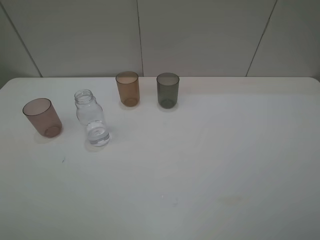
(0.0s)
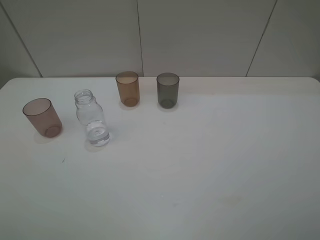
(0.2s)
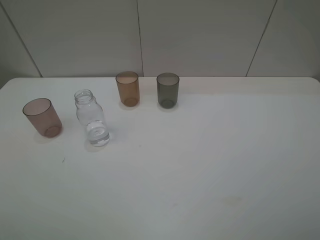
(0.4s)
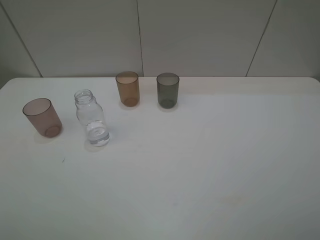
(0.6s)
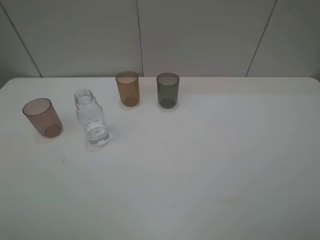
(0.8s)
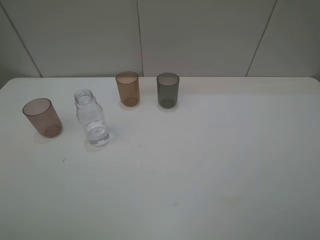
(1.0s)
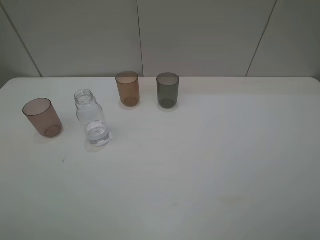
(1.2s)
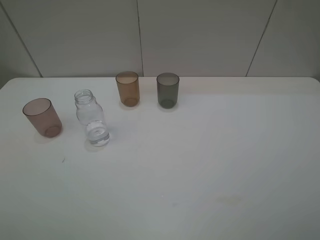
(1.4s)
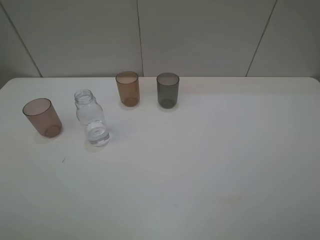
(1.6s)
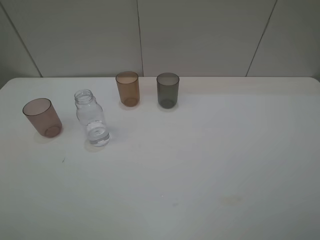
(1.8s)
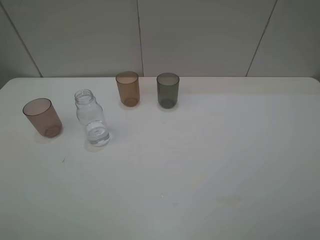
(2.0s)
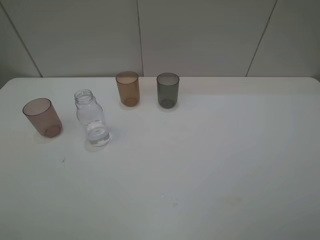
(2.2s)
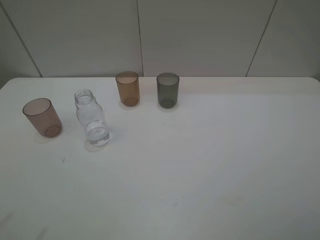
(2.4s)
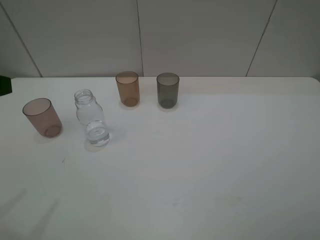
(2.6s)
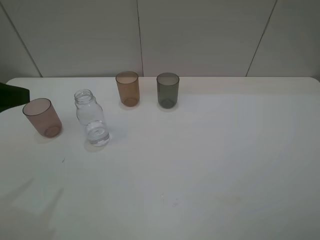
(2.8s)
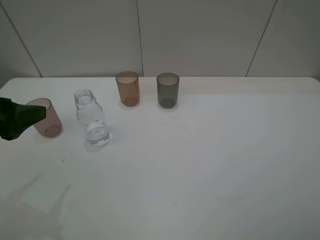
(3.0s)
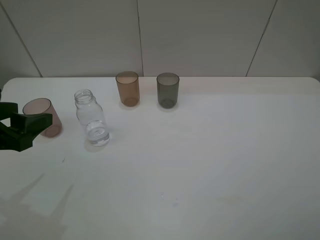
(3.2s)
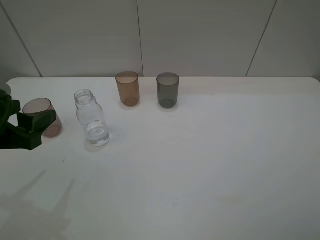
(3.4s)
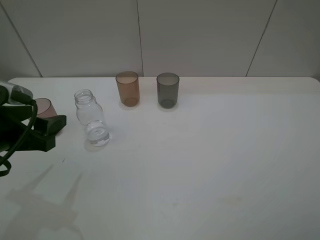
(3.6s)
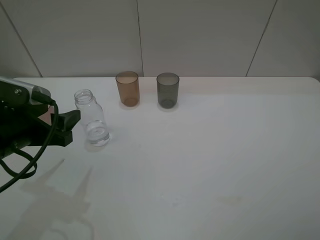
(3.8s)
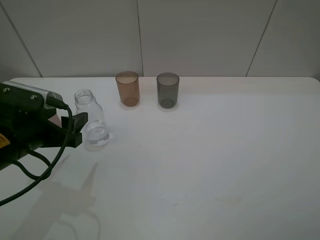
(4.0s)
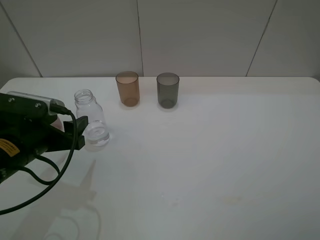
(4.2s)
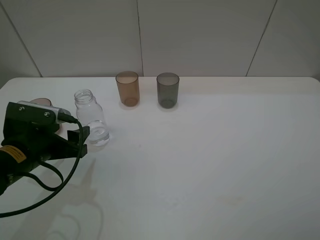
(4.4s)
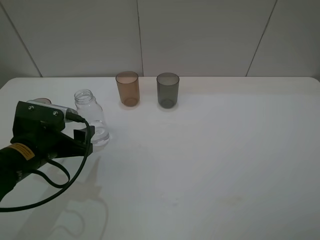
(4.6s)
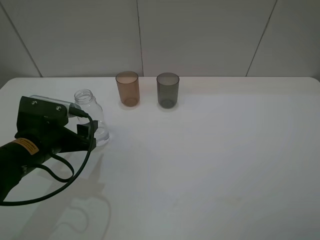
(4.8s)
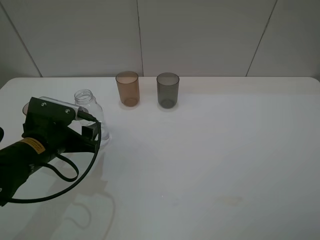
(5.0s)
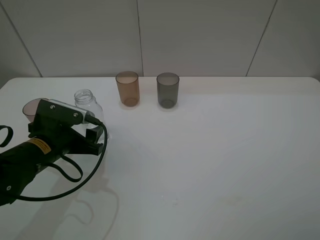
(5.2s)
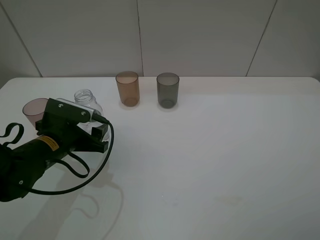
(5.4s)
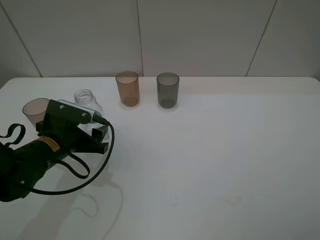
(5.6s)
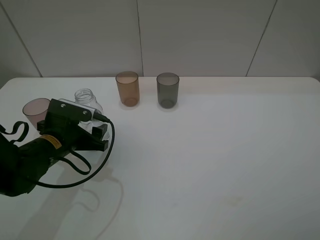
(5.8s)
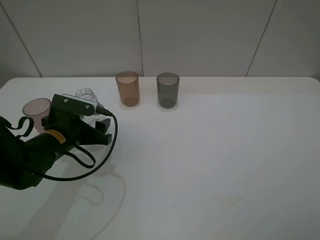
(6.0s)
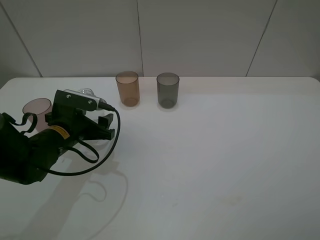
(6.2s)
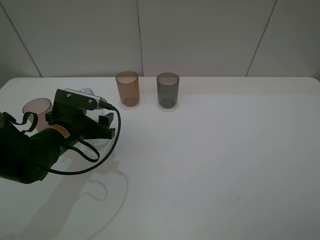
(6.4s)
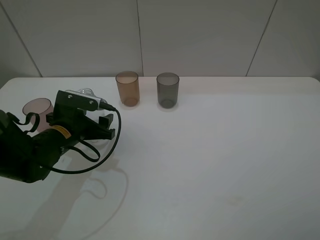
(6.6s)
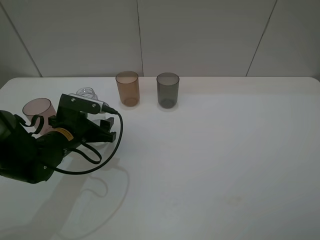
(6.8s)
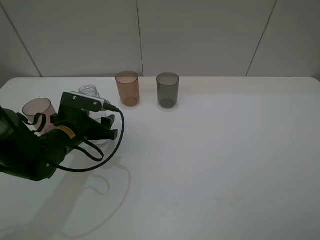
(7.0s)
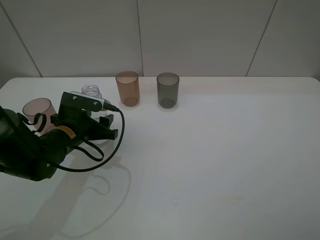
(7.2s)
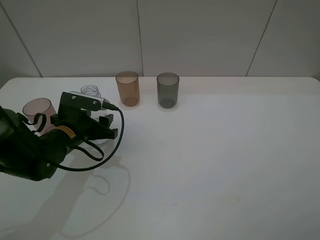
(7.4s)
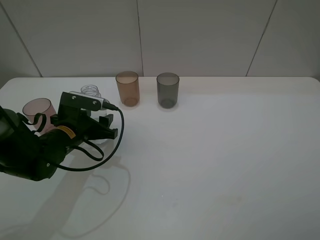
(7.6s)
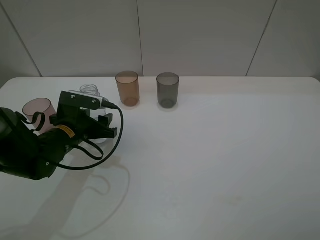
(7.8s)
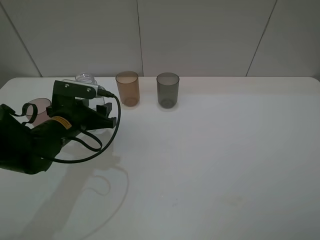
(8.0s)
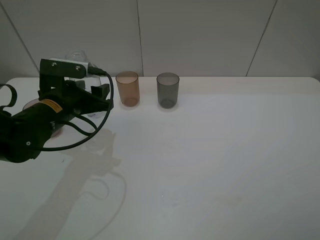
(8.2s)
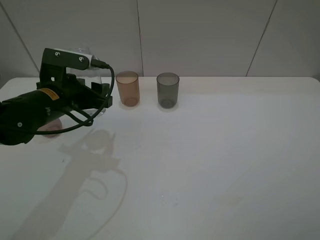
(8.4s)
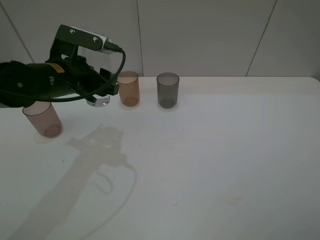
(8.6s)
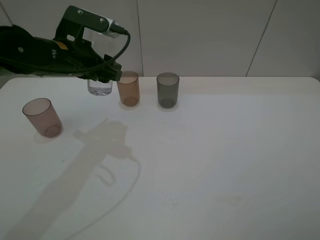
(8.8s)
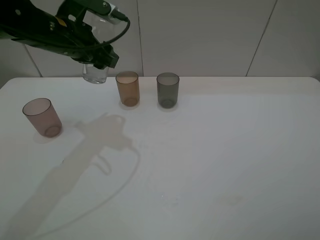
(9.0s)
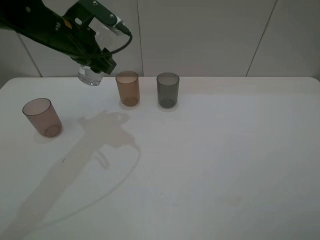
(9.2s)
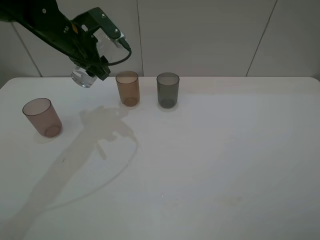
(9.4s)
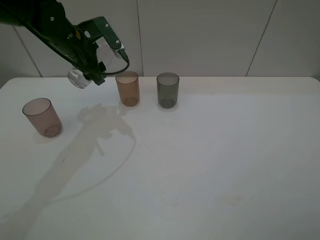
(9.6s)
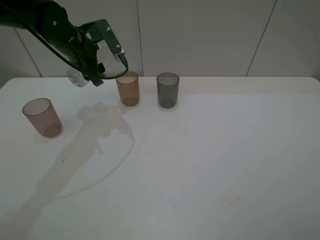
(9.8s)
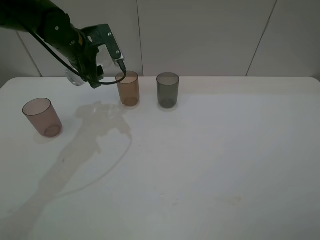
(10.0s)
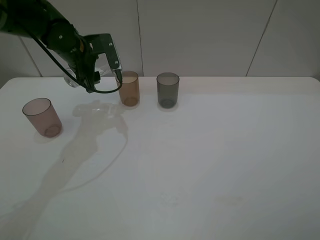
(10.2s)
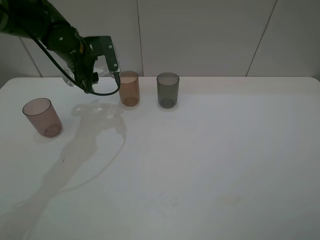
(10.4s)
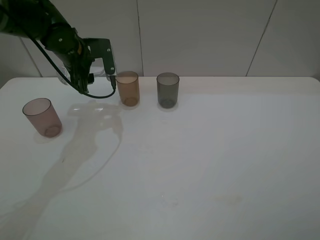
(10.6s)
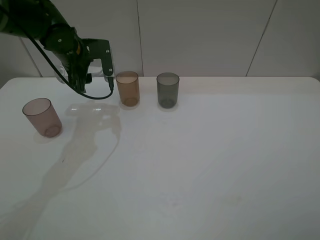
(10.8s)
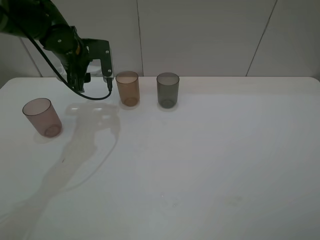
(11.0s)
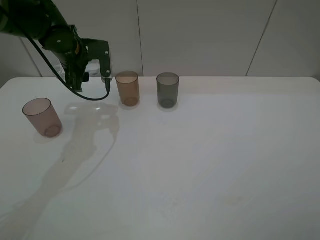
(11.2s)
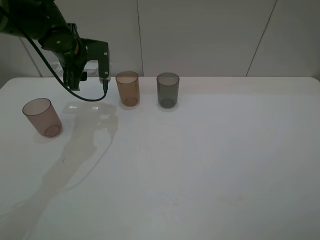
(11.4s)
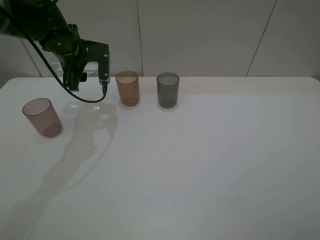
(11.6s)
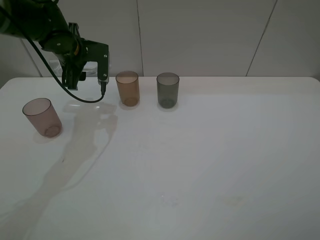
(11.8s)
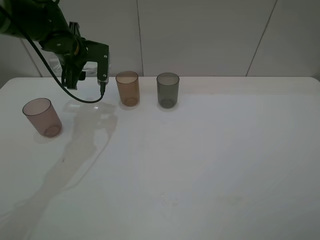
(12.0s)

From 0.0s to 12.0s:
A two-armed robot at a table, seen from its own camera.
Task of the whole recording: pick up the bottle filled with water and pour water into the middle cup of the three cups.
Step, from 0.0s to 8.0s: Grasp the transparent bottle with the left gripper.
From 0.0s to 1.6s: Neither gripper changes place.
From 1.6s to 3.0s: The left gripper travels forward by approximately 15 cm.
From 3.0s to 4.4s: The left gripper moves downward, about 10 cm.
From 4.4s to 6.0s: The left gripper is displaced forward by about 5 cm.
From 6.0s to 7.6s: The left gripper closes its fingers.
From 7.6s to 9.0s: The left gripper heads upward and forward, covering roughly 20 cm.
From 9.0s to 10.4s: The left gripper travels downward and forward by about 10 cm.
From 10.4s to 12.0s: The grippers stay close to where they were, moving slightly.

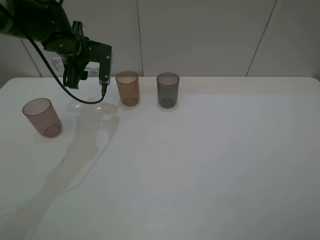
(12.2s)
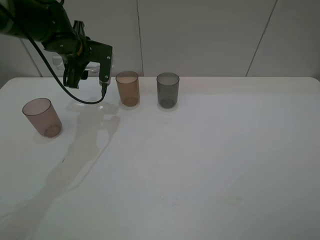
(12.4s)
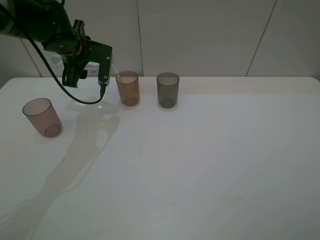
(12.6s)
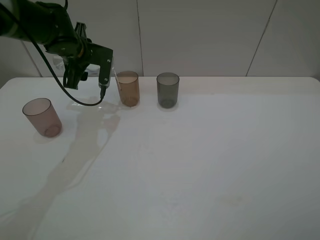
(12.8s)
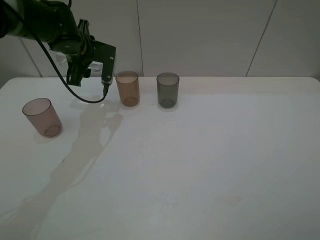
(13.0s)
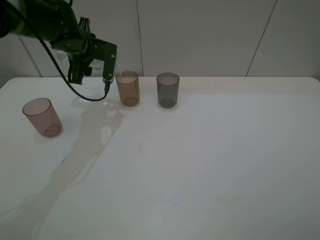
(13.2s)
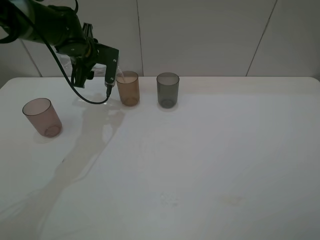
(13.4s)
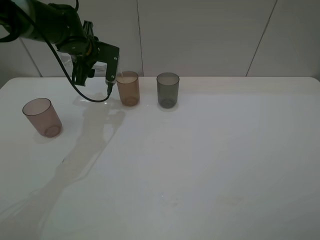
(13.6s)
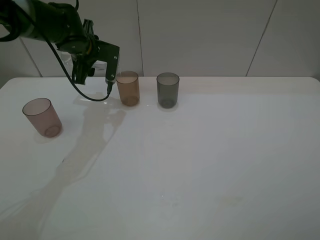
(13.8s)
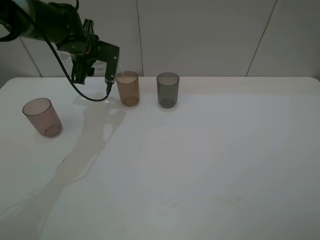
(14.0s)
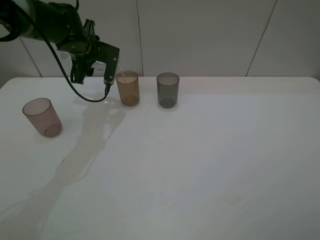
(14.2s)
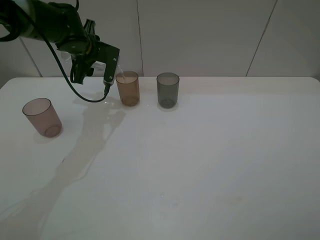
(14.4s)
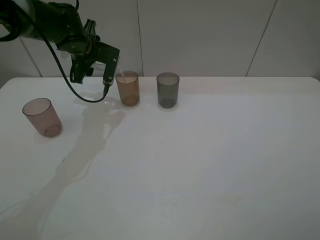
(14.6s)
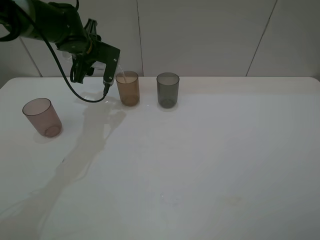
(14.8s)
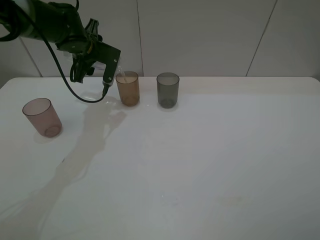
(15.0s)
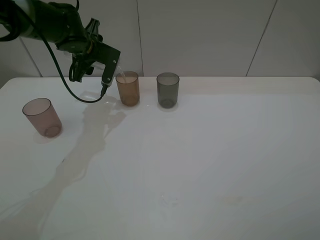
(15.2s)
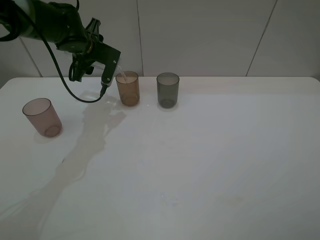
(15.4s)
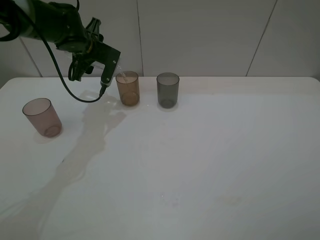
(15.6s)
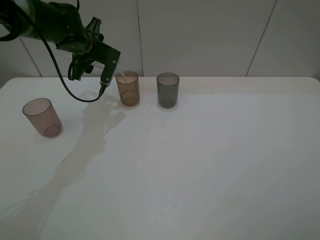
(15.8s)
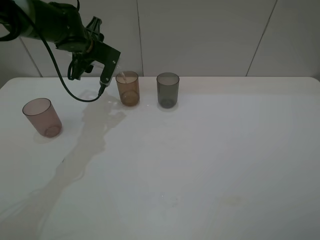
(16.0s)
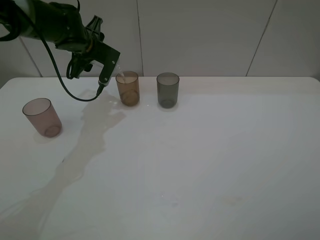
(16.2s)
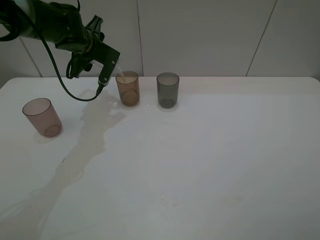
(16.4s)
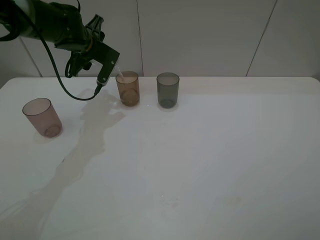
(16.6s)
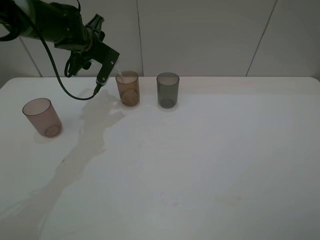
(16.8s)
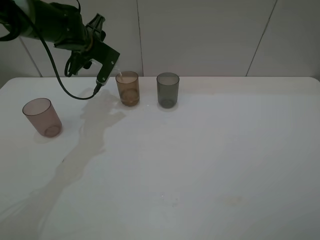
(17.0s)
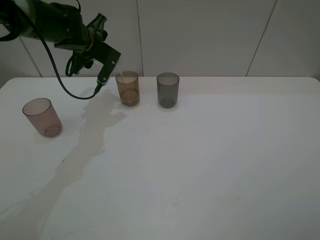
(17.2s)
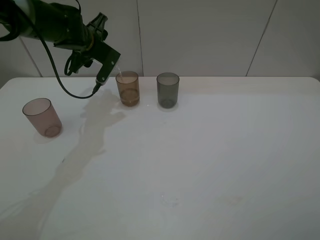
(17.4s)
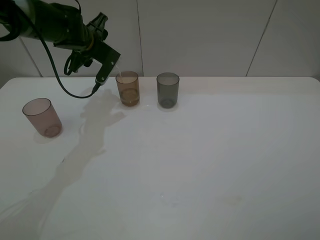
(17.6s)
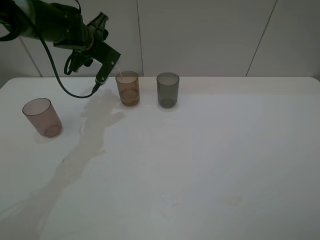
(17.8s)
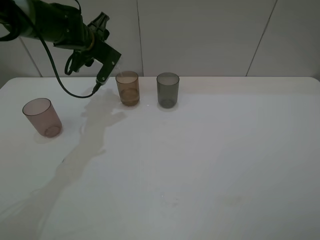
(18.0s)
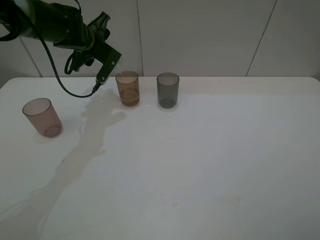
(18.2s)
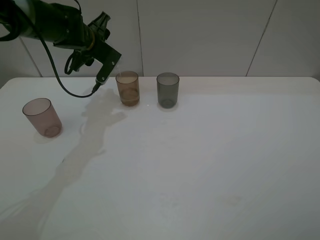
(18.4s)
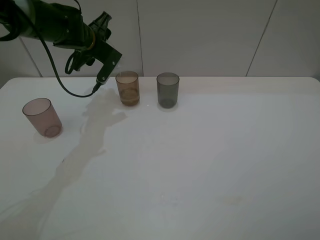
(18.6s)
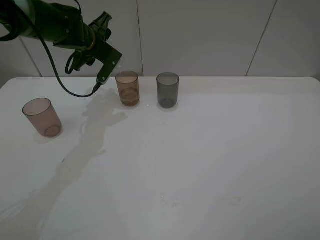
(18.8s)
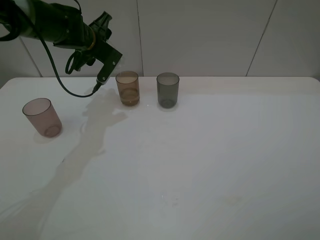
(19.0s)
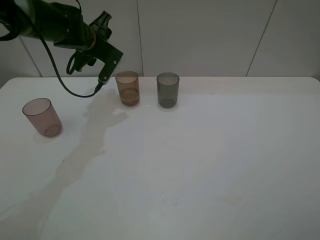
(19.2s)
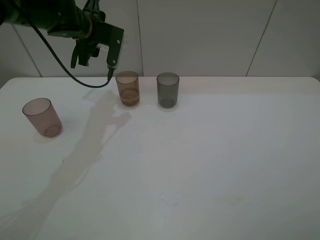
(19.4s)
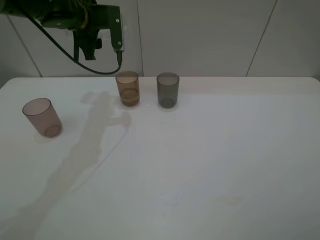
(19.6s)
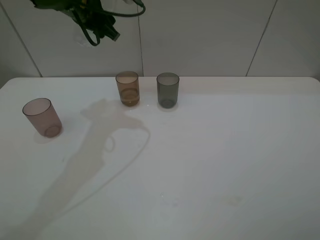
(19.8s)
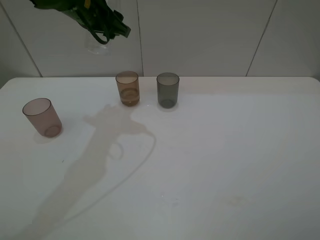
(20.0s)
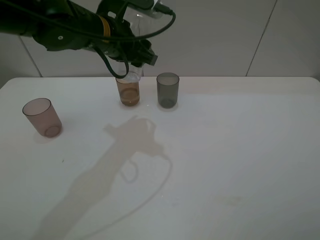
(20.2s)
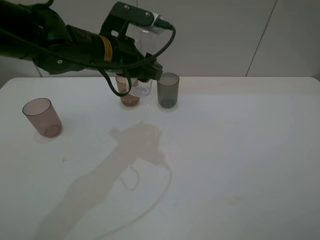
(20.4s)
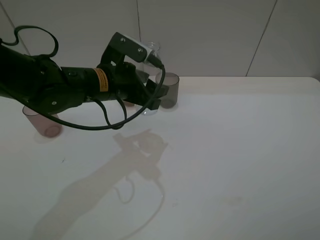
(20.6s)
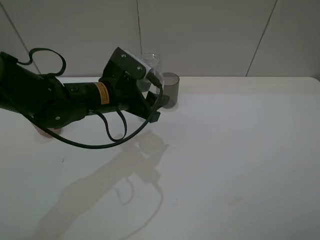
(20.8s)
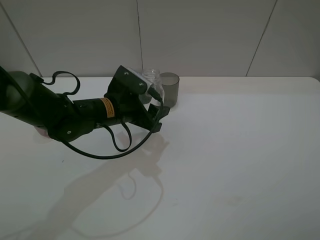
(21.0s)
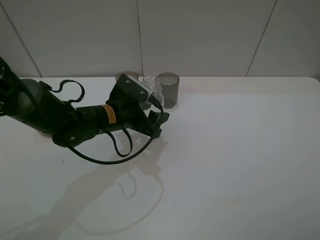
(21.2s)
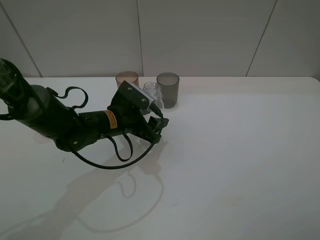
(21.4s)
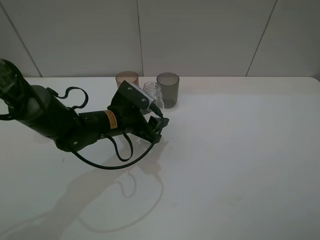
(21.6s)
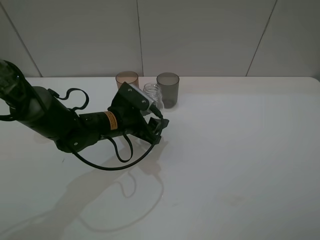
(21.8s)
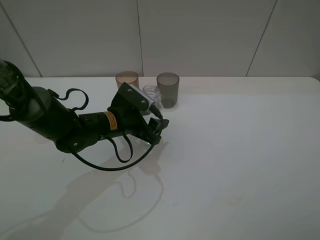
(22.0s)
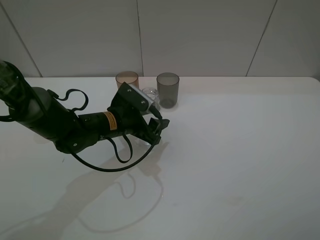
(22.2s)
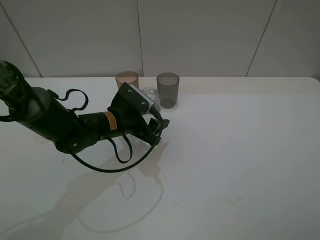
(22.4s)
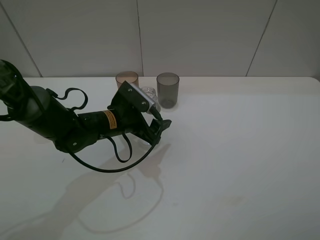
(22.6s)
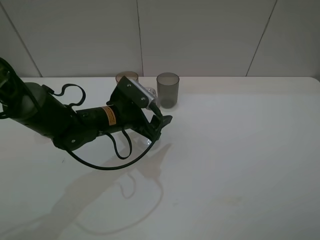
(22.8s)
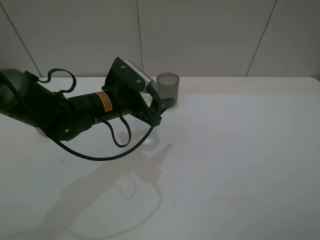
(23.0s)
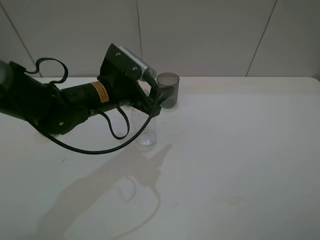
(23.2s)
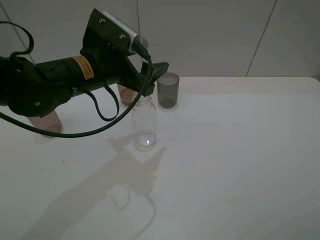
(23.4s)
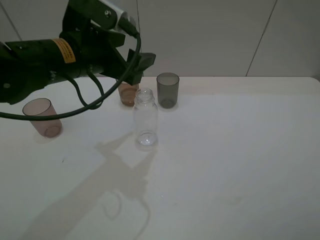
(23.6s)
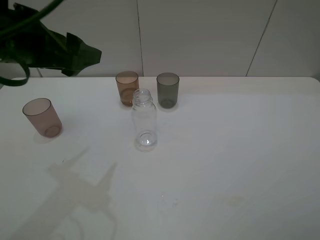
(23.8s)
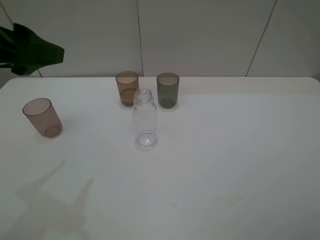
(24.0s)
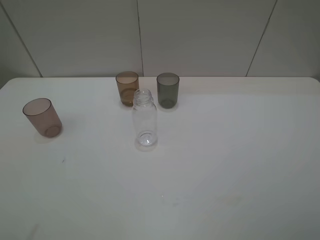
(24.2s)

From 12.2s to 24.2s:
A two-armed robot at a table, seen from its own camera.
Task of the whole recording: pick up the bottle filled with water and pour water into the middle cup of the three cups.
Step, from 12.2s to 20.0s: Pour water from transparent bottle to brown cup with the left gripper.
Step, from 20.2s to 23.6s: Place the transparent bottle with the left gripper.
From 12.2s to 15.2s: The grippers make only small movements.
From 15.2s to 18.2s: There are only small adjustments of the grippers.
From 18.2s to 19.8s: The left gripper heads upward, covering approximately 10 cm.
From 19.8s to 21.2s: The left gripper is displaced downward and backward by approximately 20 cm.
From 21.2s to 22.6s: The left gripper opens up.
From 22.6s to 24.2s: The left gripper travels upward, backward and to the left by about 40 cm.
